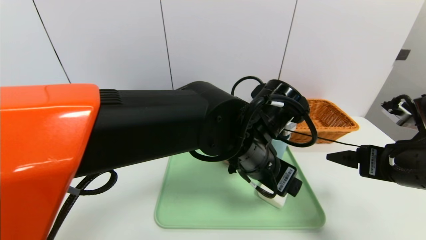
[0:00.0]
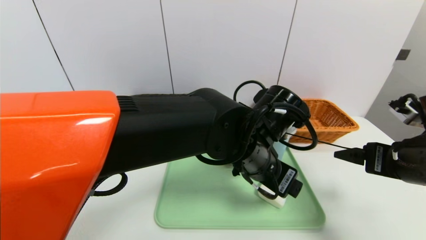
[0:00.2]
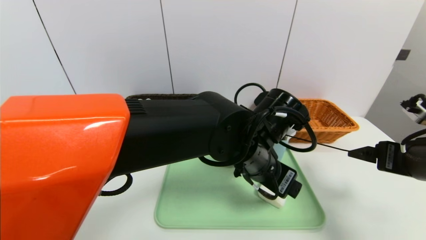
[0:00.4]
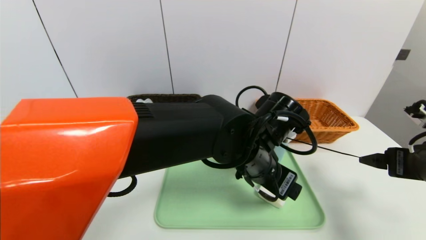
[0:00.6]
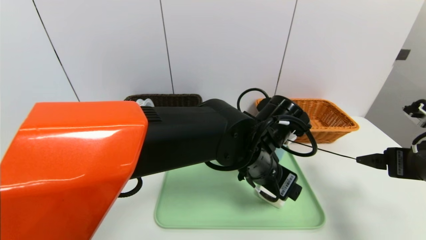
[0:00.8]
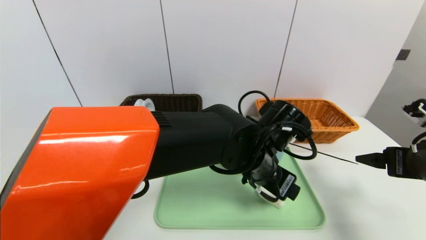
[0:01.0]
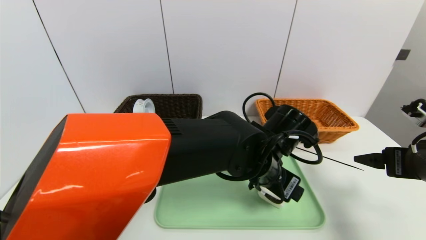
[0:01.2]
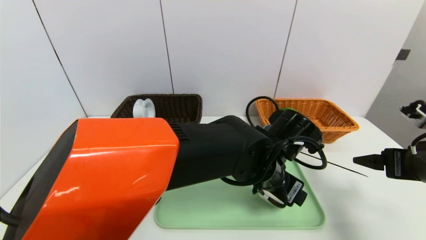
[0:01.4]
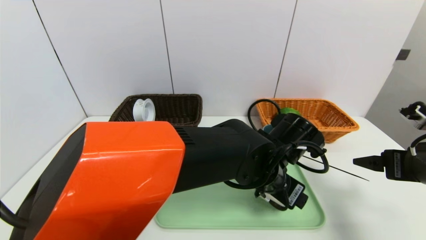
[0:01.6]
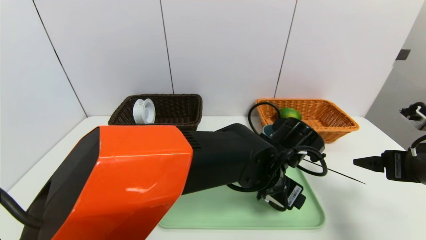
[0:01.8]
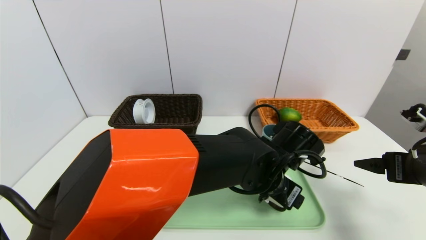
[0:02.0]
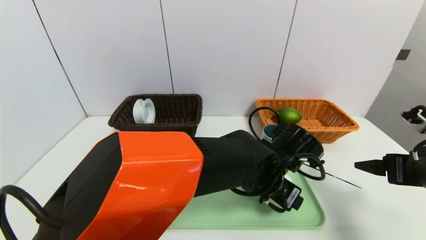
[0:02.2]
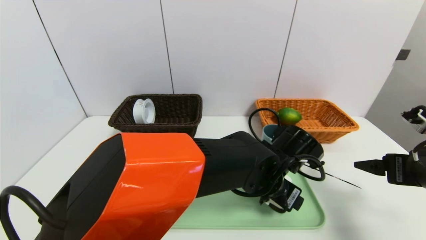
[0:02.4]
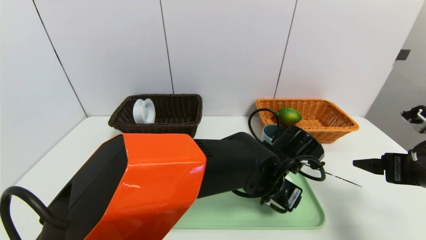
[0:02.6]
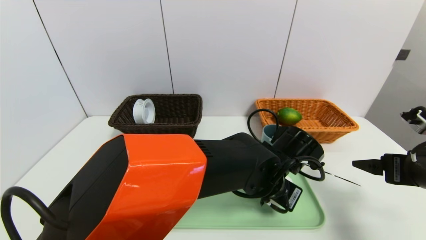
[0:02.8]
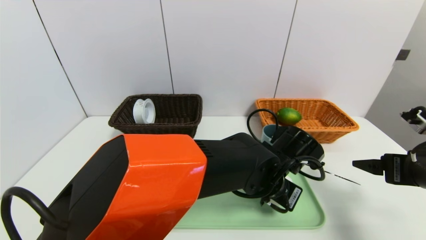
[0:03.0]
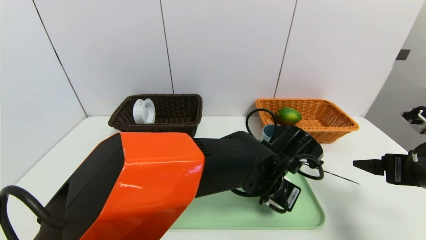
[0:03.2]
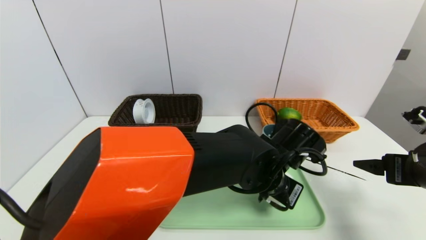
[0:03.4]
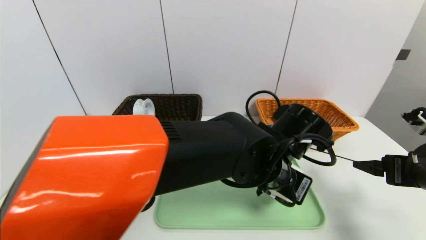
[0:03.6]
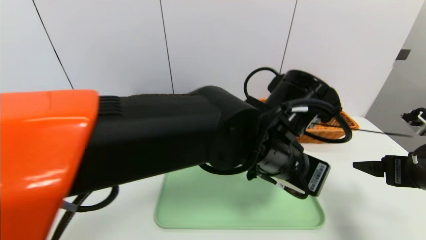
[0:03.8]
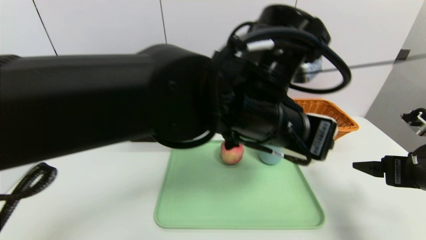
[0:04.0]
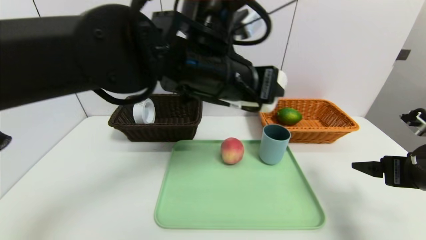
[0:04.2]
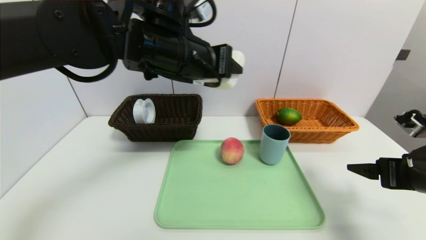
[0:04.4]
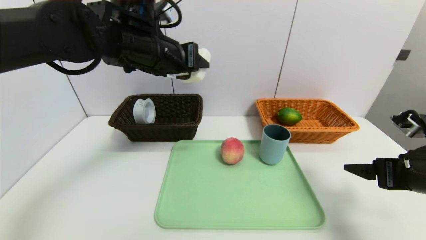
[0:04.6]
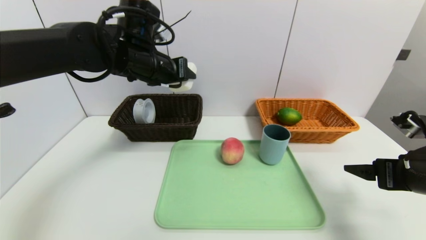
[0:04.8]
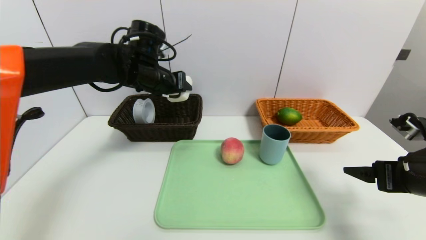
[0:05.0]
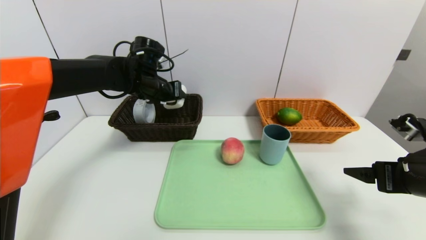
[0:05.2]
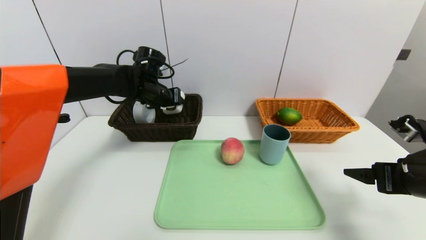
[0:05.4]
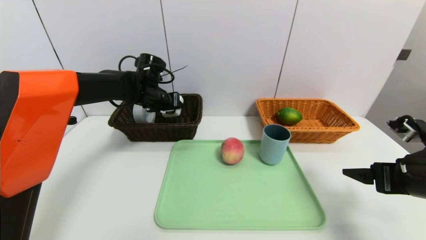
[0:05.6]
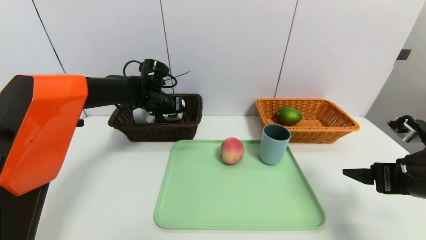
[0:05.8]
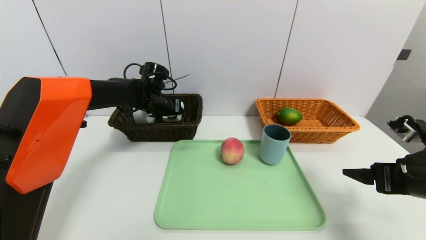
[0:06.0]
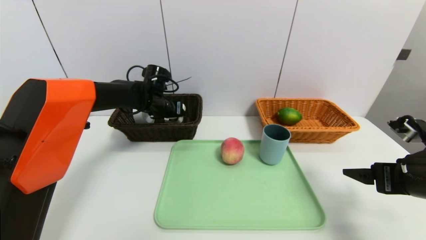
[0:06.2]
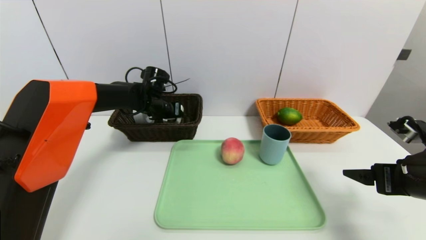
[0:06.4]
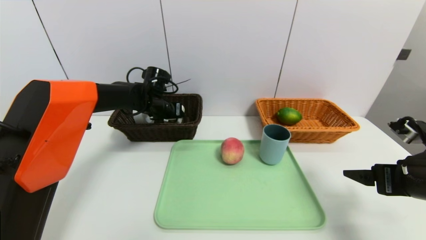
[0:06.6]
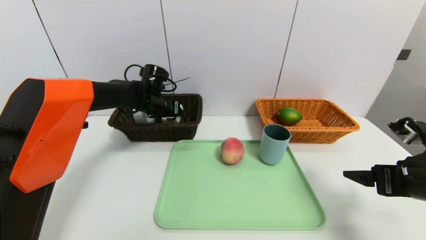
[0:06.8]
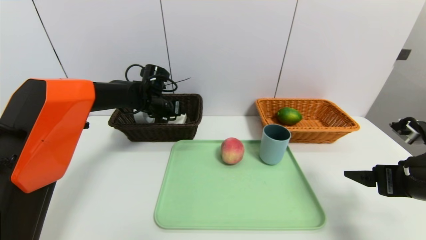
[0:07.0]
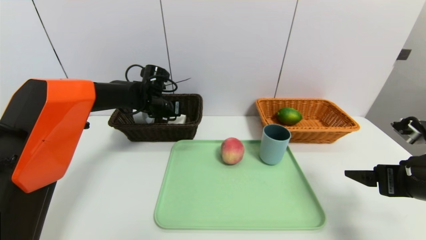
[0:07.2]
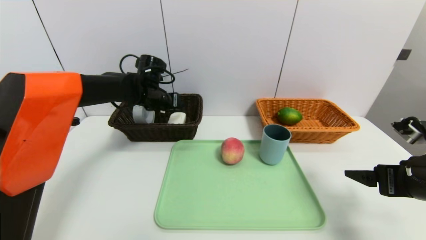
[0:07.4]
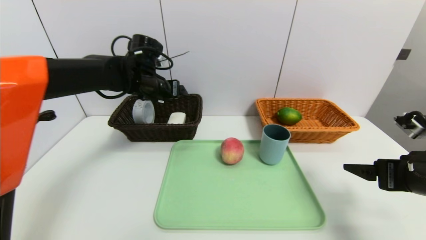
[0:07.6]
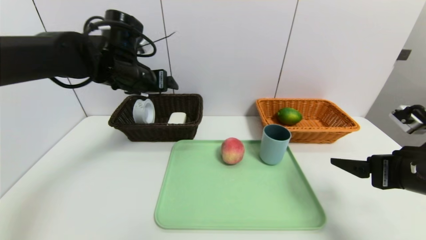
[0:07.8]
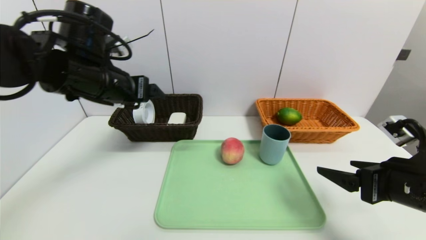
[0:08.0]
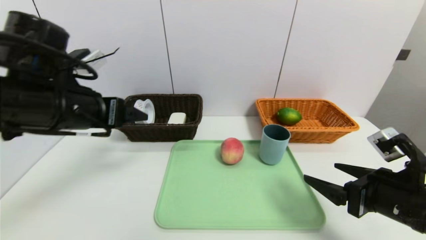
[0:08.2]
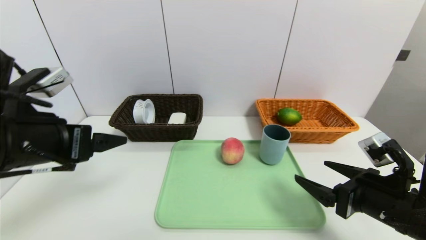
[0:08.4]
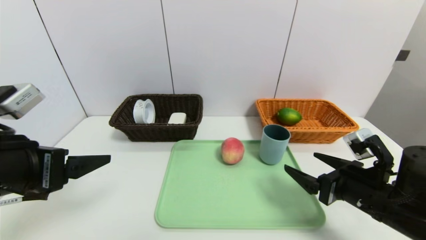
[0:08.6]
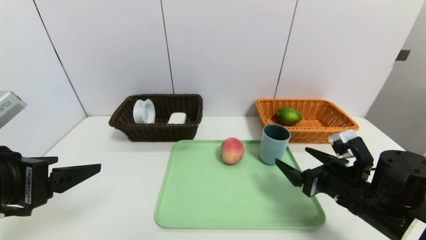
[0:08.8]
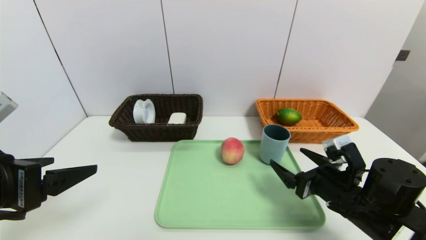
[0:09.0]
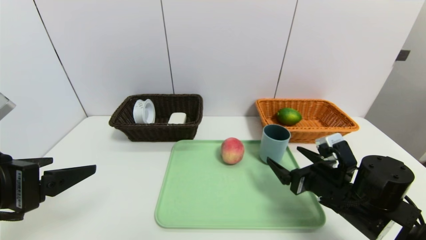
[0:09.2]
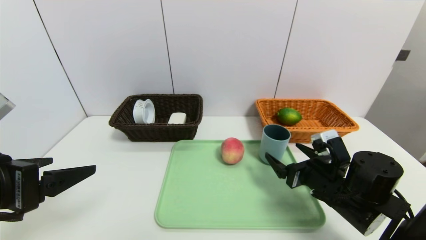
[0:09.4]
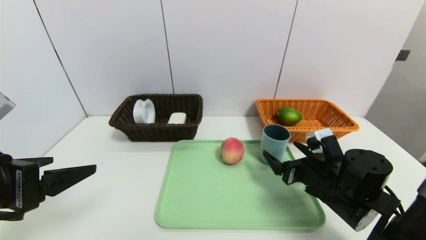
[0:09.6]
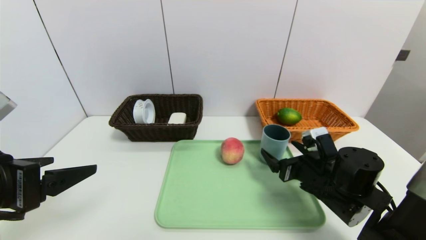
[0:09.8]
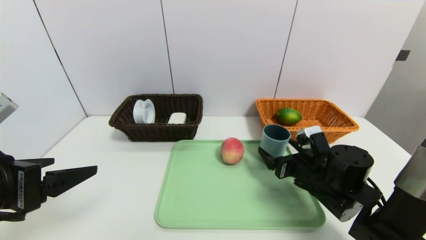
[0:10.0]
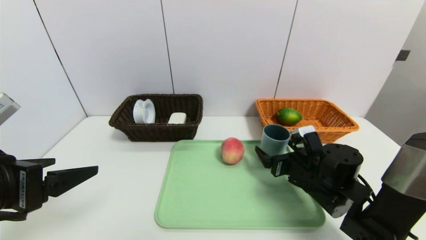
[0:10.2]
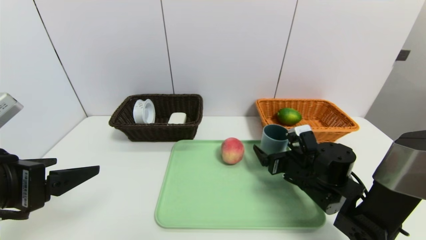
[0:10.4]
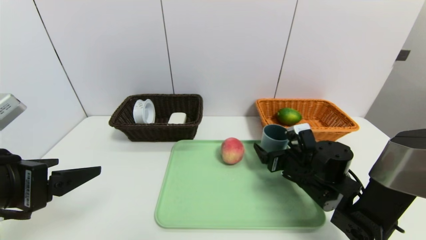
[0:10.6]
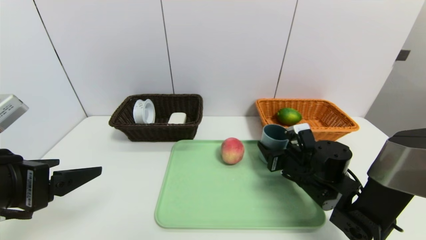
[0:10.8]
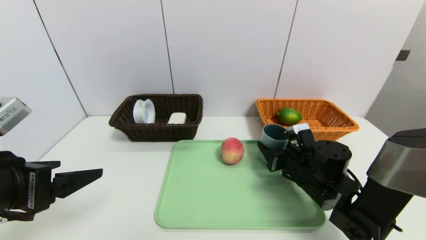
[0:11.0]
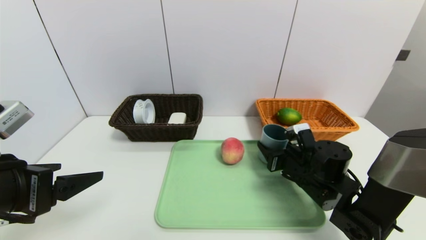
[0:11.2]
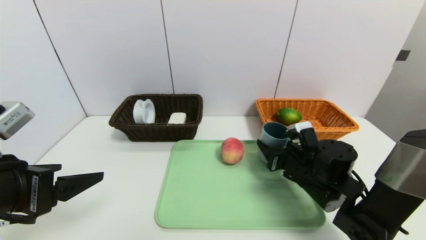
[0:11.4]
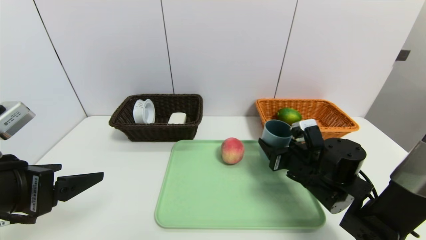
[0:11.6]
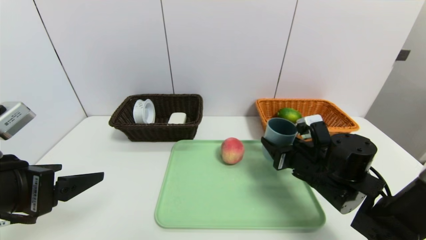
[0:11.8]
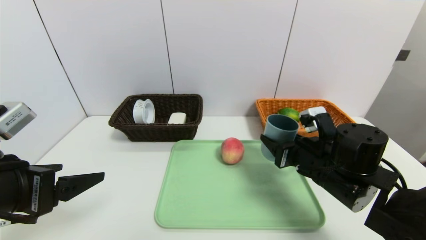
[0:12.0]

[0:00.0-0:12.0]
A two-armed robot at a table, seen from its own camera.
Task of the whole recording: place the food in the right basket with the right gripper, and place the non food items in the left basket with the left gripper.
Step, 0:00.0 to 0:07.4: Grasp the soap and put it in the left basket.
0:00.0 to 0:01.6: The right gripper is displaced to the right by approximately 5 cm; the left gripper travels downward by approximately 5 cm.
0:01.6 to 0:03.0: The left gripper closes up.
0:03.0 to 0:04.4: The left gripper heads upward and to the left, covering roughly 30 cm.
0:04.4 to 0:06.0: The left gripper shifts about 25 cm forward, downward and to the left.
0:06.0 to 0:07.6: The left gripper shifts approximately 10 cm upward, and opens up.
0:07.6 to 0:09.0: The left gripper is displaced backward by roughly 30 cm. Meanwhile the right gripper heads downward and to the left, covering roughly 15 cm.
0:09.0 to 0:10.4: The right gripper travels forward by approximately 5 cm.
0:10.4 to 0:12.0: The right gripper heads upward, covering approximately 5 cm, and closes.

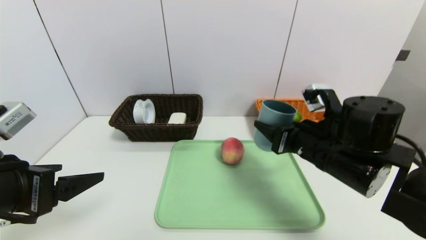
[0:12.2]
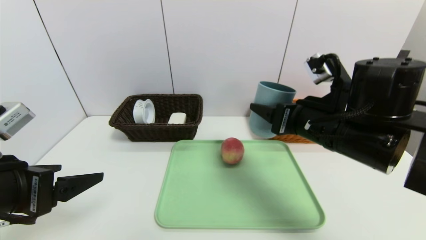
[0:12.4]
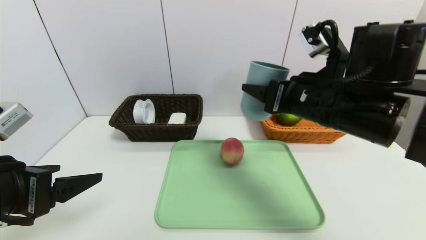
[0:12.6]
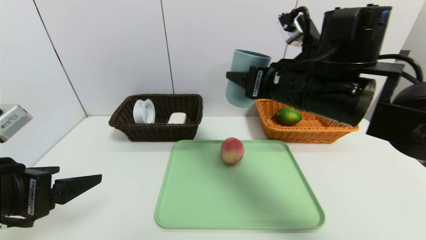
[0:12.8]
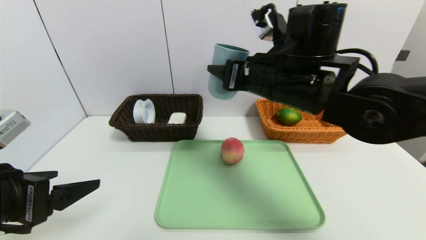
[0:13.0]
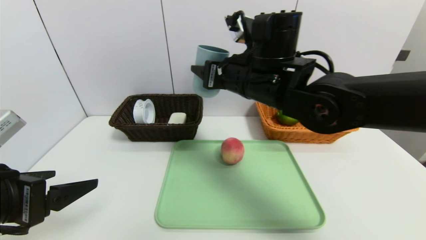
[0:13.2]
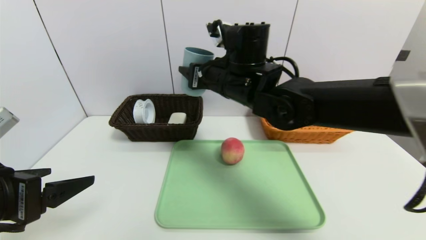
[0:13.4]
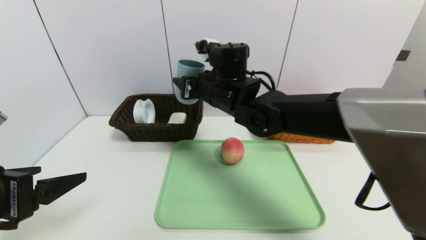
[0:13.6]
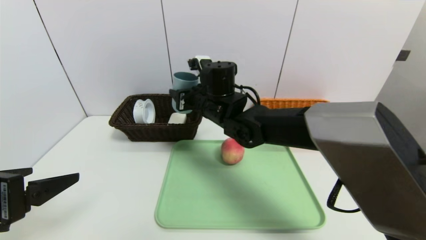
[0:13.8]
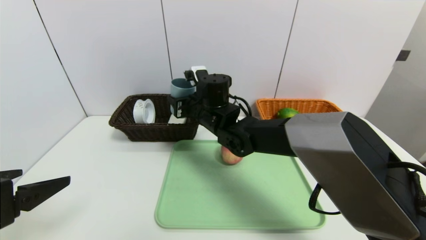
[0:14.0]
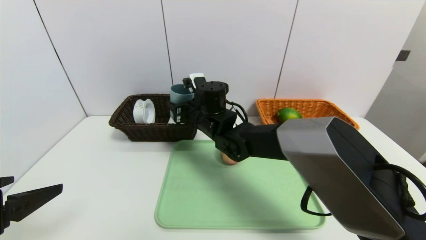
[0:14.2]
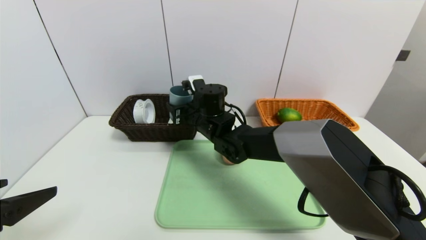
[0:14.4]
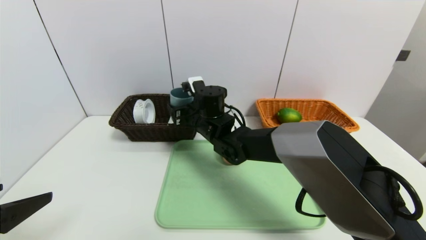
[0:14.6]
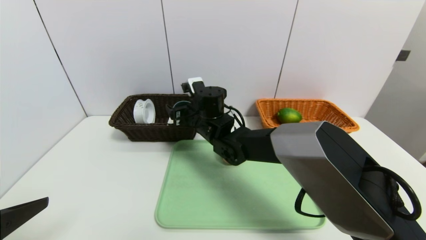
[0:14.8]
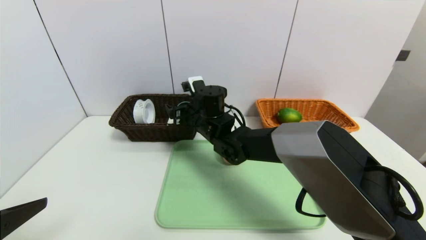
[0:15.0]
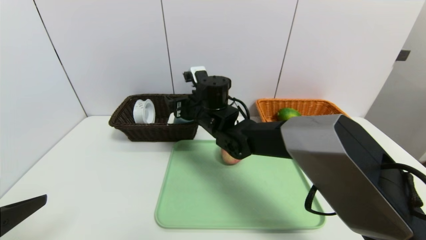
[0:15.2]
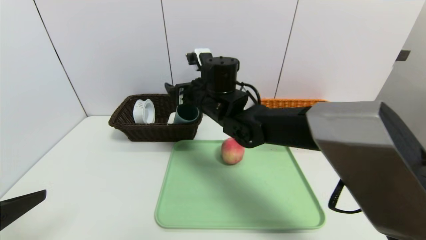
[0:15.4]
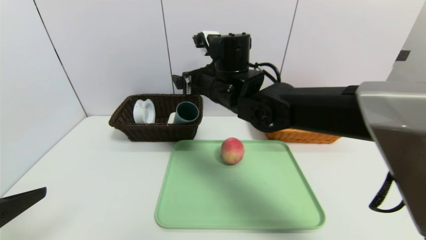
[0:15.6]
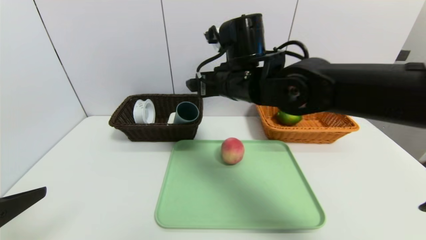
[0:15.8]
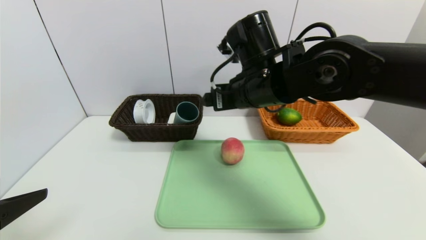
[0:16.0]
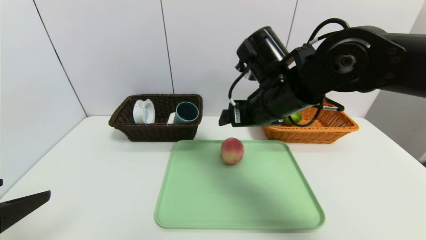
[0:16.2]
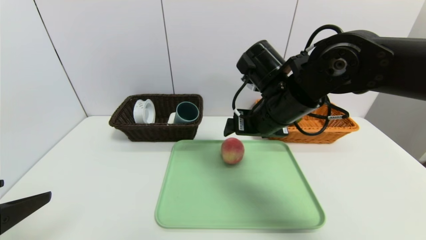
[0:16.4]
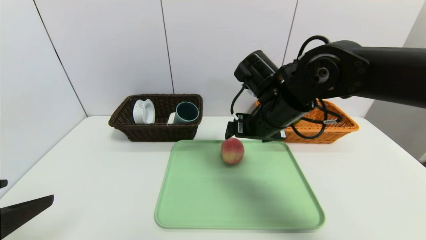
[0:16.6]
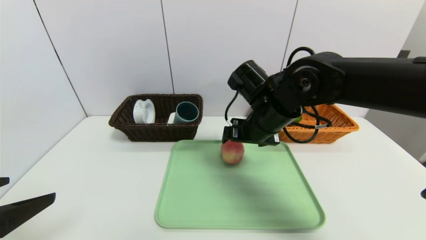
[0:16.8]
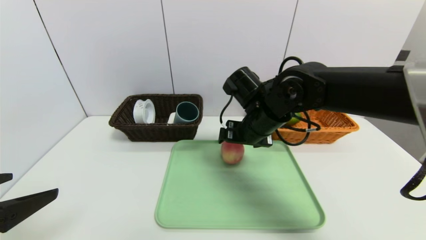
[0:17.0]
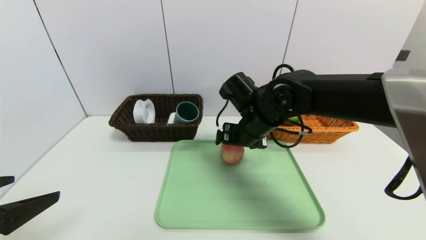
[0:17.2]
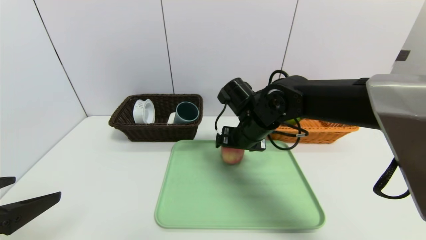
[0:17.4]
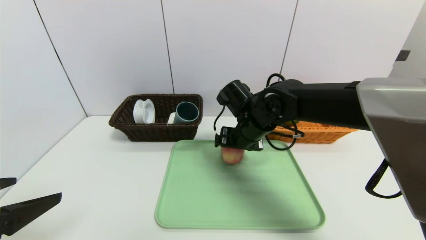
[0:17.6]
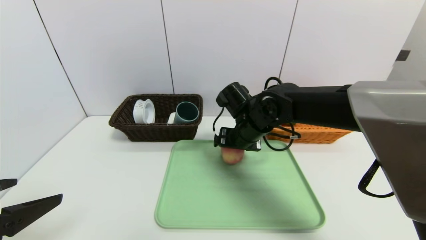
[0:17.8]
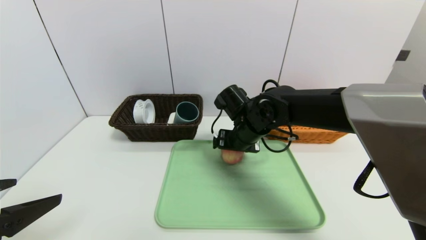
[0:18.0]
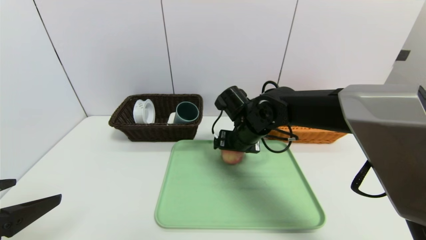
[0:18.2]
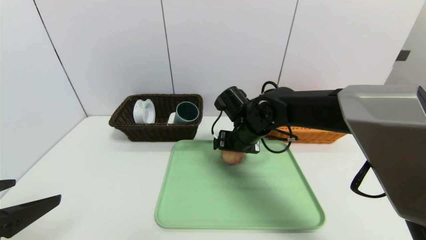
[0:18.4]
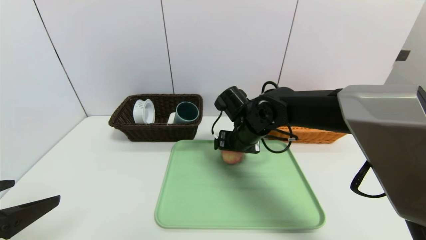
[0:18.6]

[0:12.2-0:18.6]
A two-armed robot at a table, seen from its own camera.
Task of the whole recording: place the food in the right basket with the right gripper, and place the non food items in the left basket with the left gripper.
Step, 0:12.2 to 0:15.4: Grasp the blue cup and put it in the left basket.
0:12.2 to 0:13.8: The right gripper moves to the left and forward, roughly 25 cm.
0:13.8 to 0:15.4: The right gripper moves roughly 5 cm downward and comes back, and opens.
0:15.4 to 0:17.0: The right gripper shifts some 10 cm to the right.
0:17.0 to 0:18.6: The right gripper ends up roughly 5 cm from where it was.
